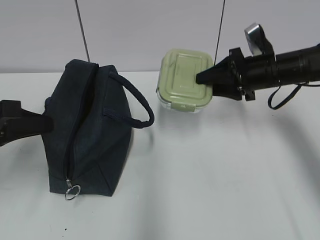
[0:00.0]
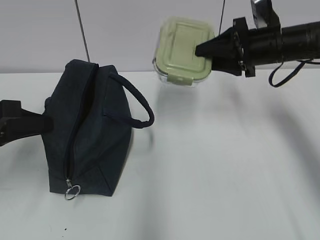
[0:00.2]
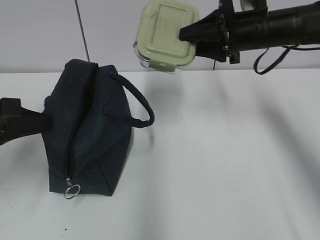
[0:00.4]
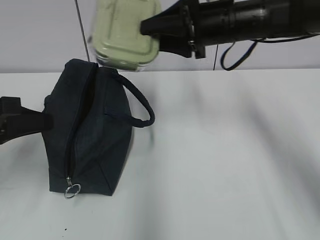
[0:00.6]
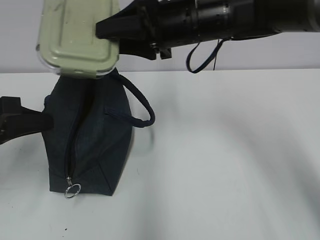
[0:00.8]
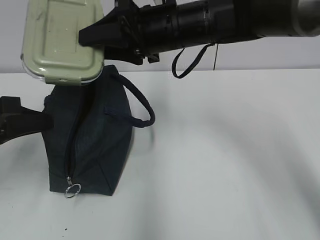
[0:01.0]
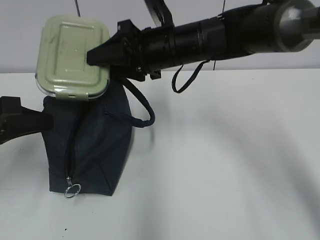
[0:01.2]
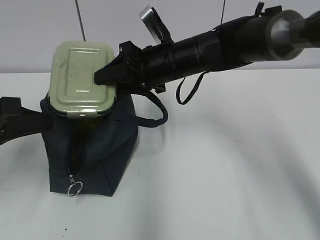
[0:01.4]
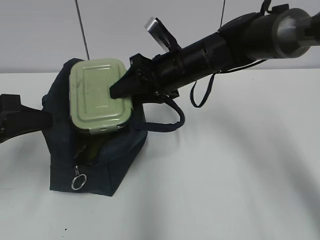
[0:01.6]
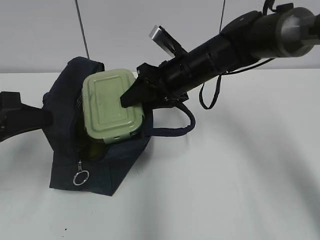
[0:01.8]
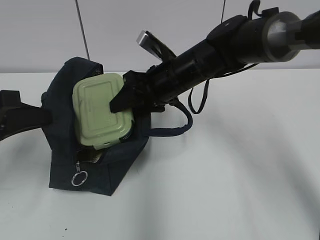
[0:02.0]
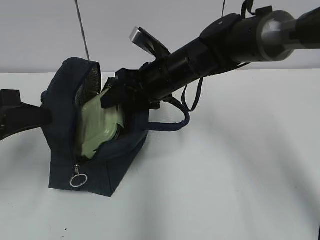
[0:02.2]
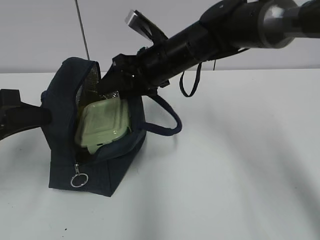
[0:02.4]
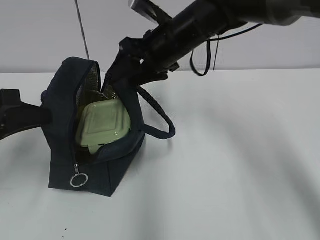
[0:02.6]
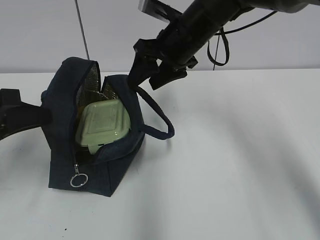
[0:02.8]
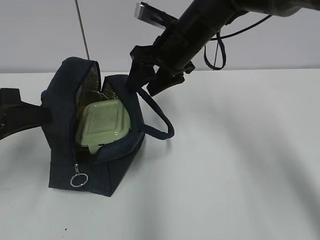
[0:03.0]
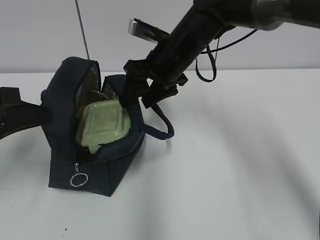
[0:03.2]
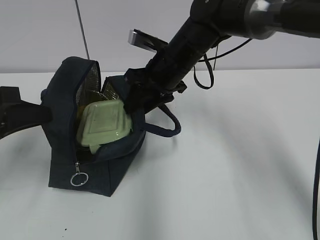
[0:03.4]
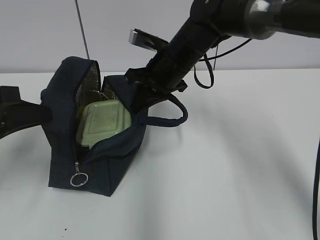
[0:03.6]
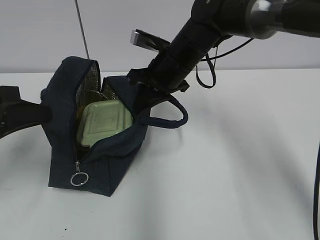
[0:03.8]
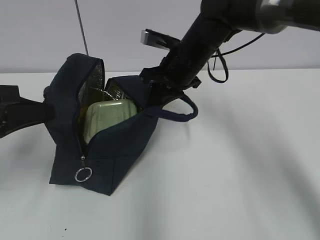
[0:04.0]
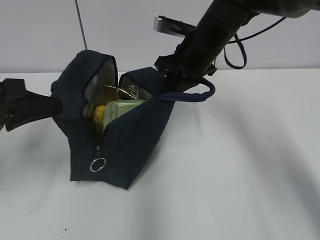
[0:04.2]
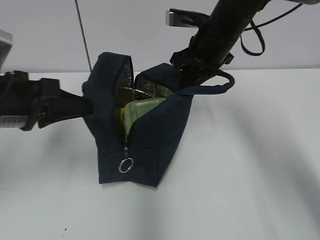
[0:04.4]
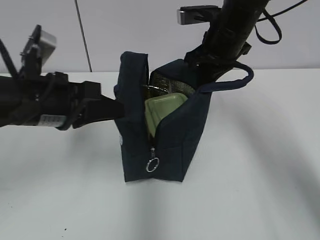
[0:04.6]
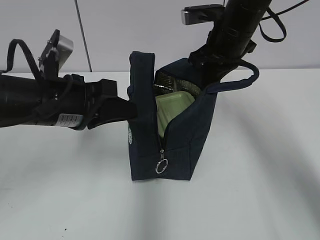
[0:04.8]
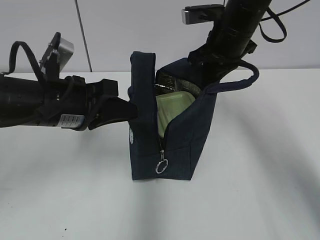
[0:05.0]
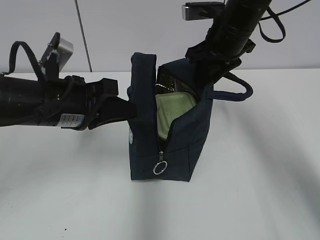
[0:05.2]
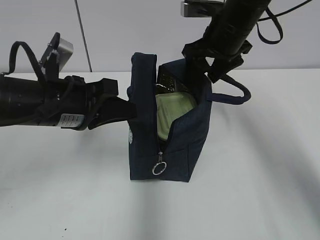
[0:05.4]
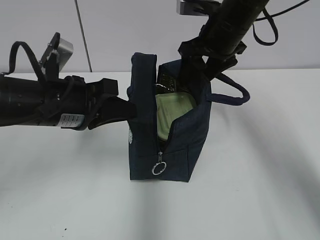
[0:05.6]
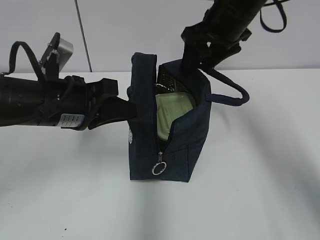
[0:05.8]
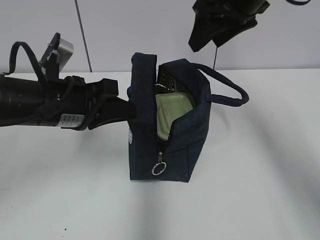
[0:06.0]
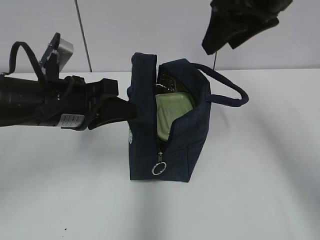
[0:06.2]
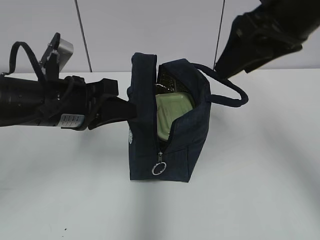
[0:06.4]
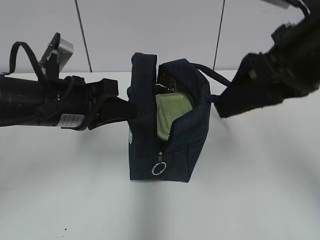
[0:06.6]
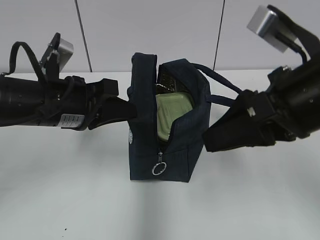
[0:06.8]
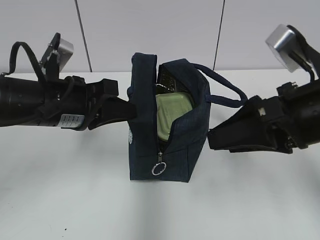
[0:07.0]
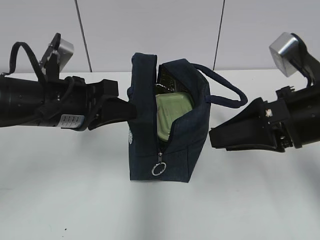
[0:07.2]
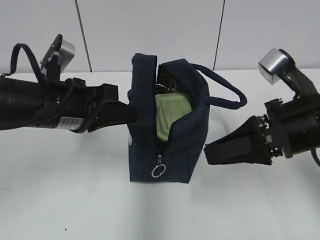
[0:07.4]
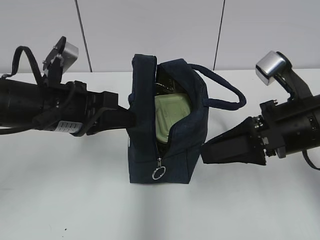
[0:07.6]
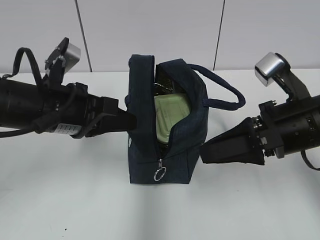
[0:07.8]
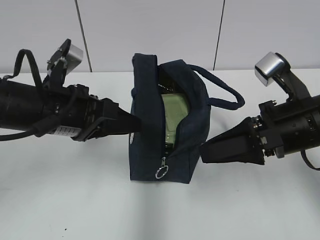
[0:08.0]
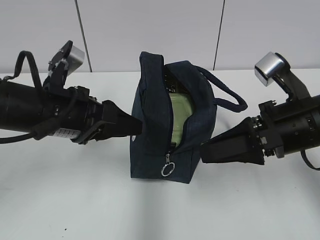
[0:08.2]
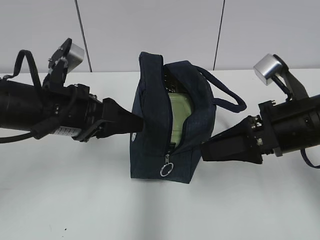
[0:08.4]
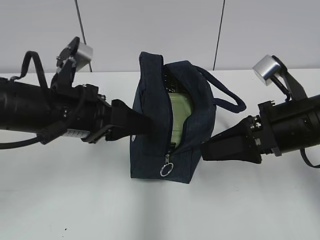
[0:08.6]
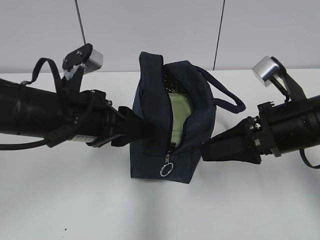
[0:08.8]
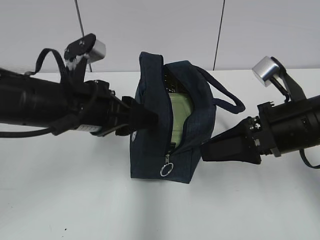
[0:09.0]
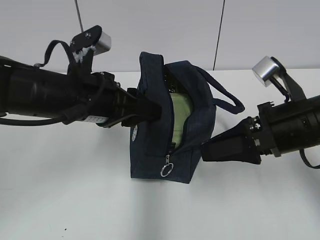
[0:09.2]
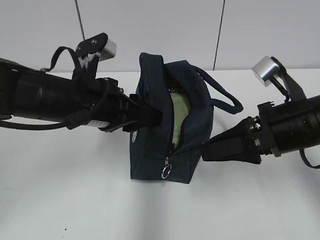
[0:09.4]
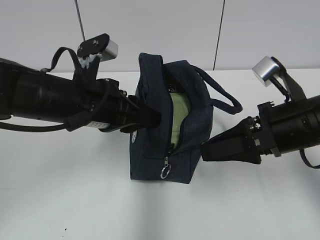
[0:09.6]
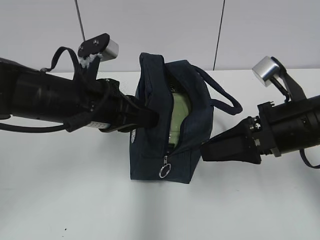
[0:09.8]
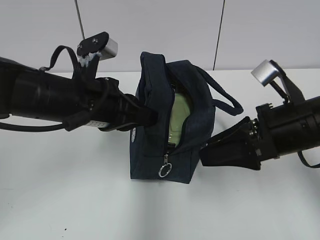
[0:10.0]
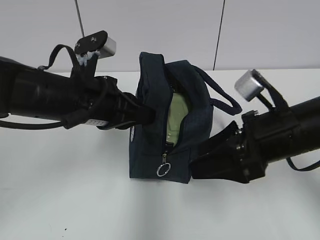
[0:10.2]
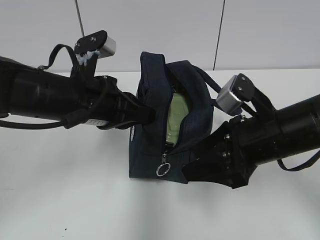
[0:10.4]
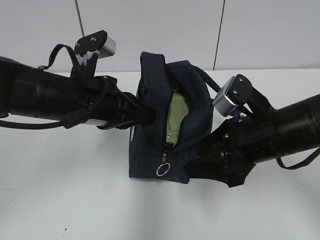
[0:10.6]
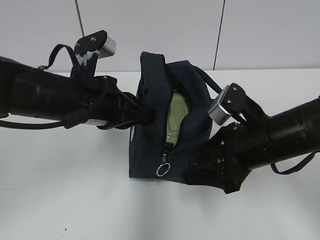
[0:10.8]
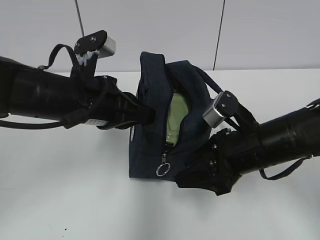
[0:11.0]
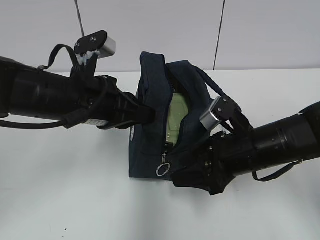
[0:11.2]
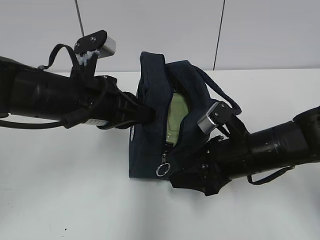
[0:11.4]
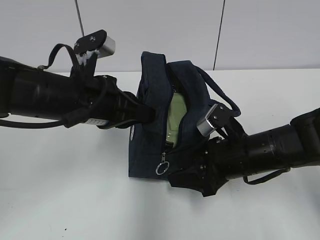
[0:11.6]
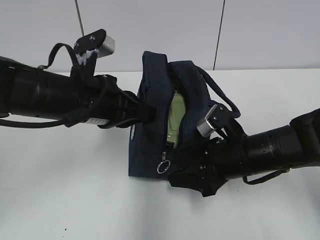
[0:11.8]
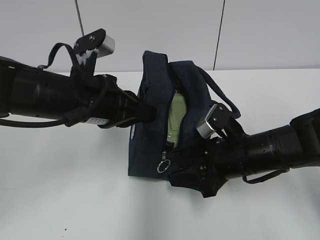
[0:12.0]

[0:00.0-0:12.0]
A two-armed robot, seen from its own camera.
Step, 0:02.6 to 0:03.4: Grab the lunch bag with your right hand.
Step, 0:03.6 to 0:05.2: Move the lunch bag to the right.
Step, 0:05.4 to 0:09.6: Grab the lunch bag with your left hand.
0:00.0 to 0:01.6: The right gripper moves to the left, roughly 15 cm.
0:03.0 to 0:04.4: Both grippers travel together to the right, roughly 5 cm. The right gripper closes.
0:04.4 to 0:06.0: The left gripper heads to the right, covering some 5 cm, while the right gripper shifts roughly 10 cm upward, and opens up.
0:06.0 to 0:07.6: The right gripper shifts approximately 20 cm downward and backward.
0:07.6 to 0:09.0: The left gripper opens up.
0:09.0 to 0:10.4: The left gripper closes.
0:10.4 to 0:12.0: The right gripper heads downward, covering some 10 cm.

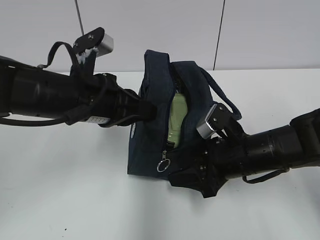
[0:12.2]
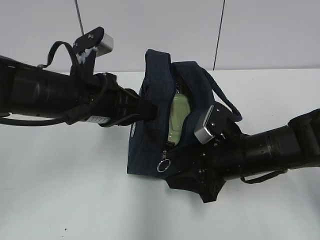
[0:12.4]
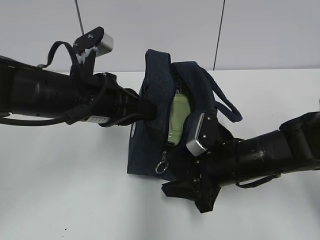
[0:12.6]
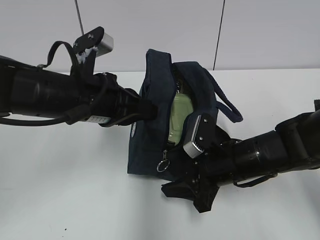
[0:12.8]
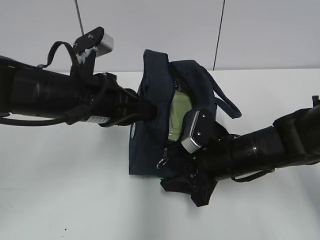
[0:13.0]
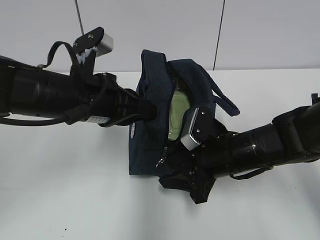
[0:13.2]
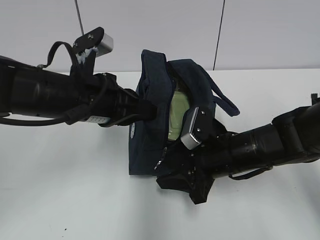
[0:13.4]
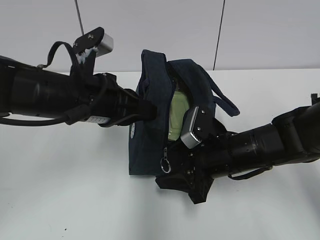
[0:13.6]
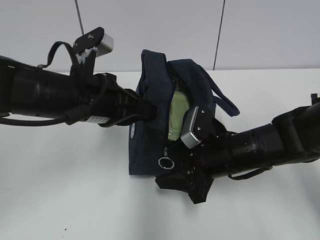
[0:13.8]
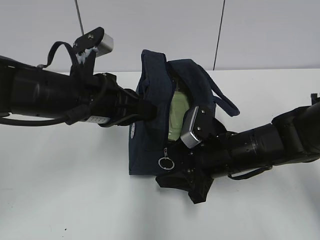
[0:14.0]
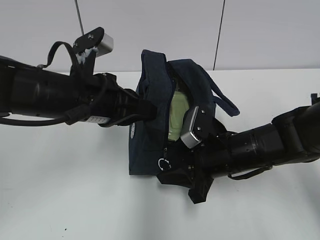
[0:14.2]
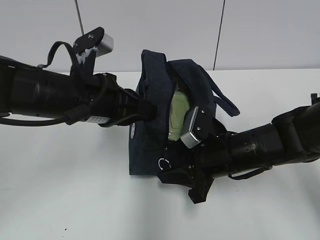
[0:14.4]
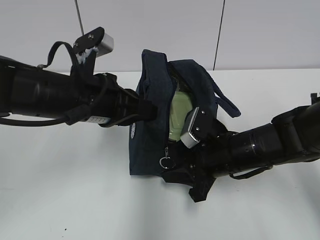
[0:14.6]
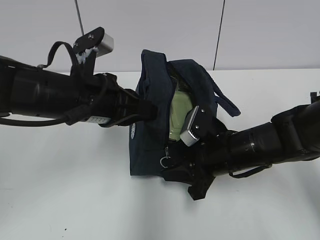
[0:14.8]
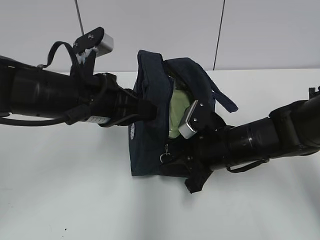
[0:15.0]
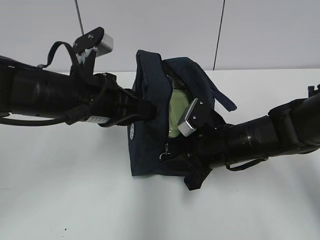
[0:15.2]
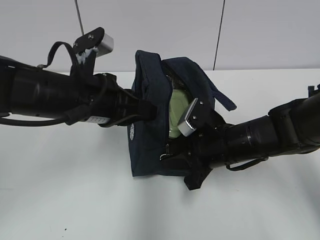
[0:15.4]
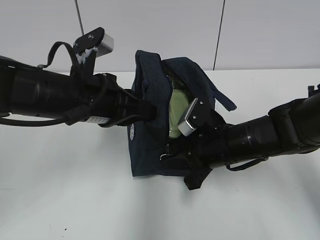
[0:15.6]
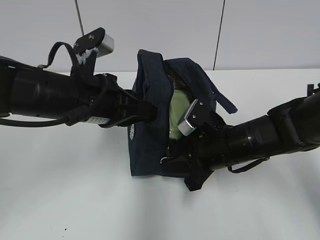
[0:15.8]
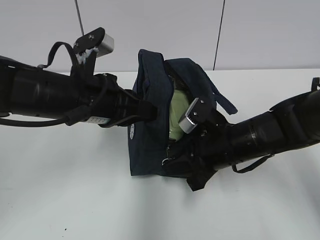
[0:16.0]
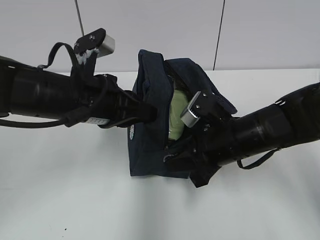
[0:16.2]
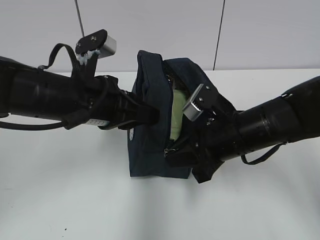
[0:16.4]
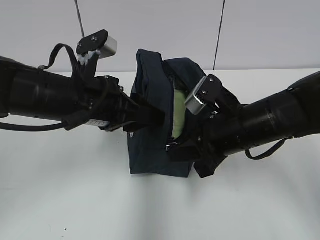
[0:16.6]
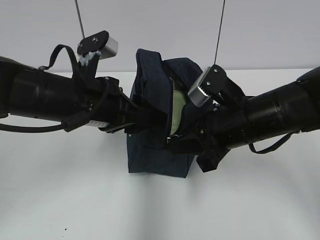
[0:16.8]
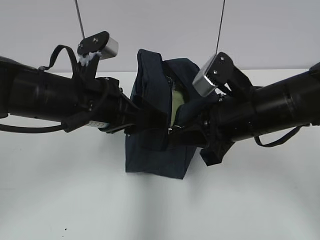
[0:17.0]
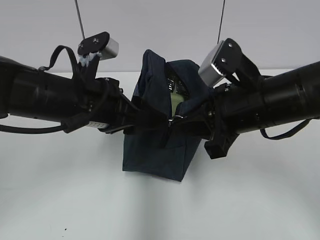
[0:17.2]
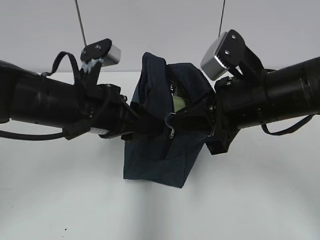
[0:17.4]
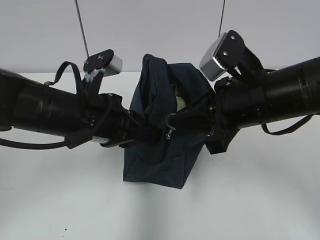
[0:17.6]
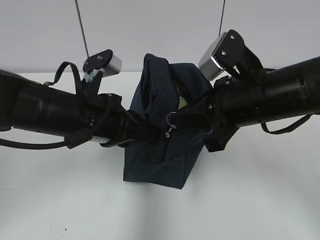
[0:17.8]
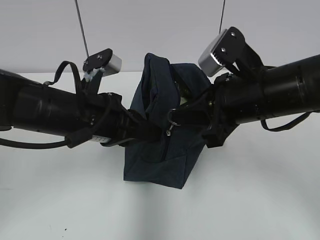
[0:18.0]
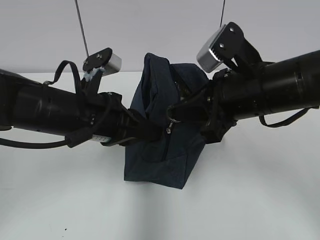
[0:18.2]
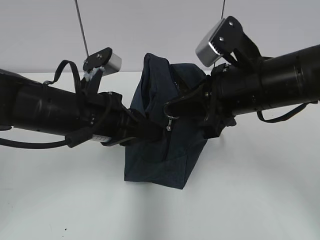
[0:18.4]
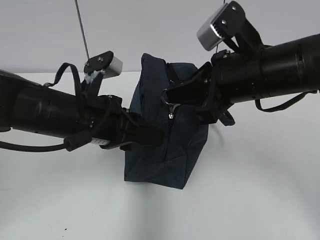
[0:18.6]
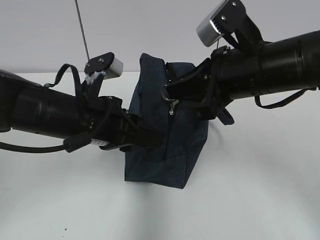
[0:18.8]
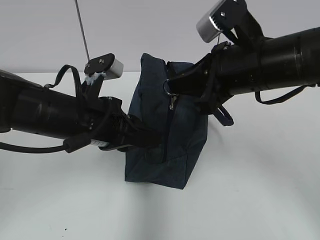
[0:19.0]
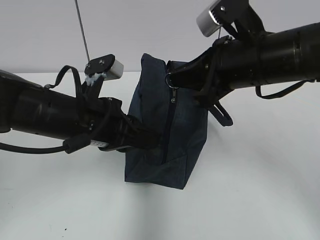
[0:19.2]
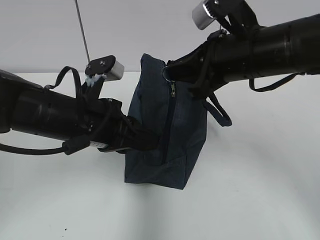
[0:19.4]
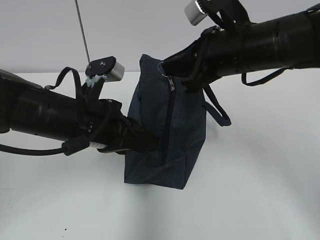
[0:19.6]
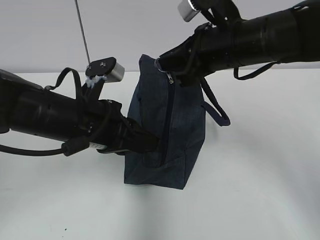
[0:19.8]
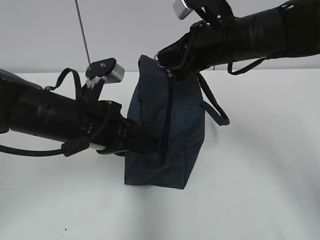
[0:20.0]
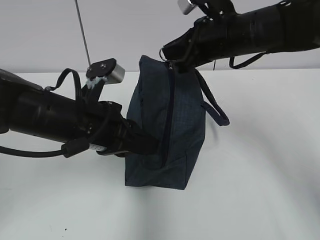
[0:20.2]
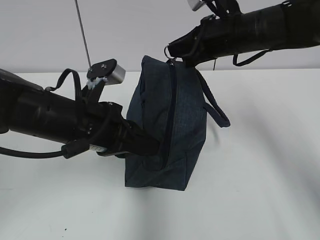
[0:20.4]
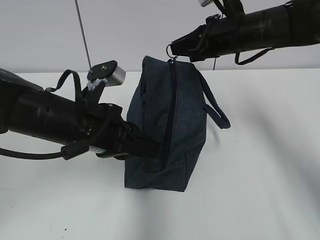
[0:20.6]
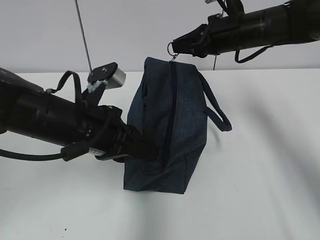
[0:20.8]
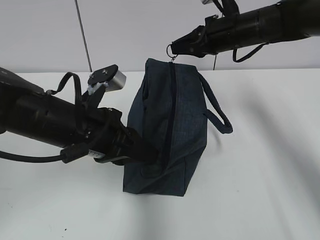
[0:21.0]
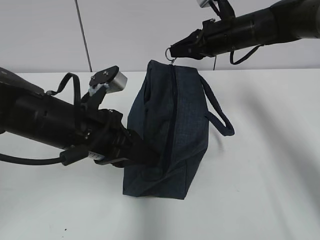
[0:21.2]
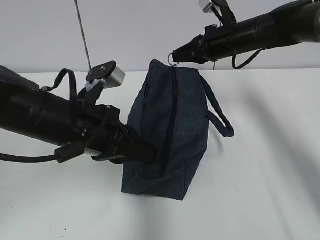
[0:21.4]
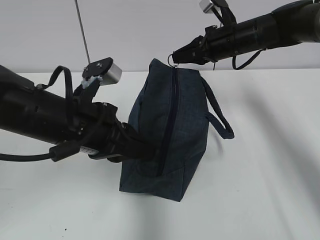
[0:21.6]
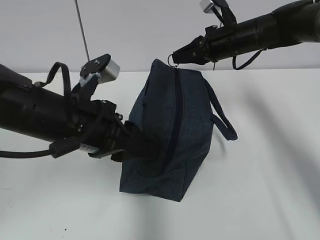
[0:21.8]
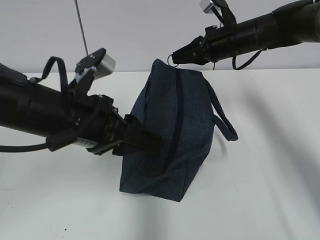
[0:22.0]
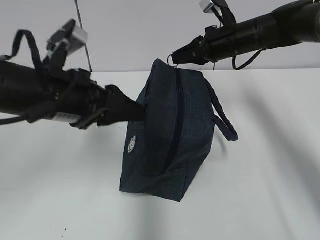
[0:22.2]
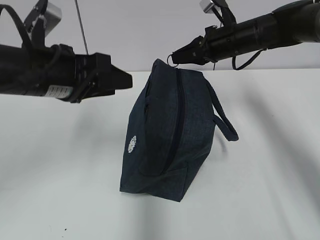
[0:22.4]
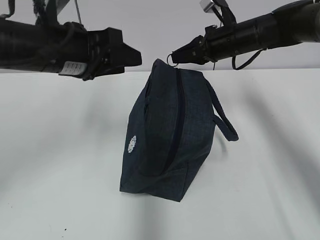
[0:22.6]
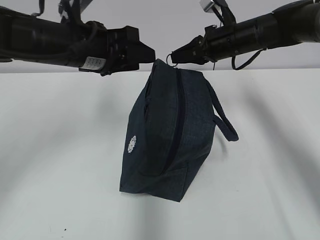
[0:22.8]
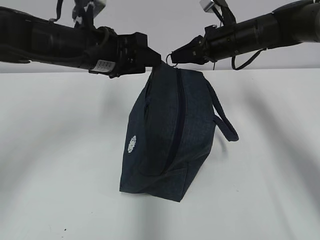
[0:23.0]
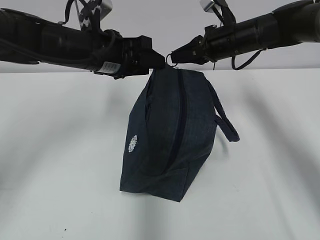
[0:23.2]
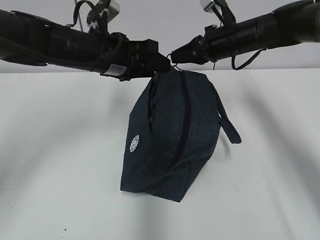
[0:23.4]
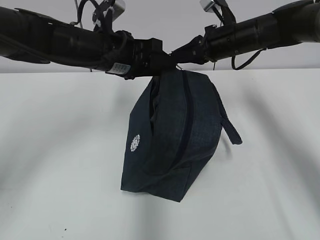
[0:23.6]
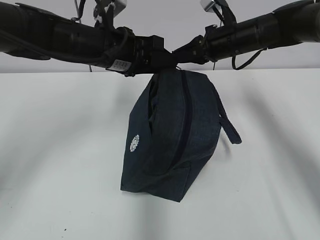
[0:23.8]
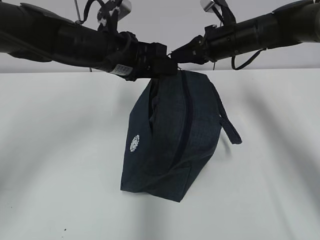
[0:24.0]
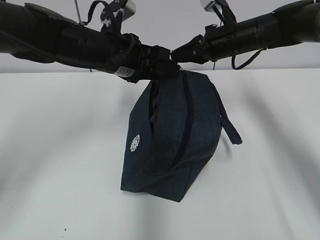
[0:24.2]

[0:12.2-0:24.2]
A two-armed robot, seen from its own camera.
0:12.2 to 0:13.8: The grippers stay close to where they were, moving slightly.
0:13.8 to 0:15.2: The right gripper closes its fingers.
0:15.2 to 0:16.6: The right gripper goes approximately 5 cm upward. The left gripper opens.
0:16.6 to 0:18.2: The right gripper is displaced upward by roughly 5 cm. The left gripper closes its fingers.
0:18.2 to 0:19.8: The right gripper travels forward by about 5 cm, while the left gripper opens, then closes again.
0:19.8 to 0:21.2: The right gripper travels forward by about 15 cm.
0:21.2 to 0:22.6: The left gripper is displaced upward and forward by some 10 cm, and opens up.
0:22.6 to 0:24.2: The left gripper shifts about 10 cm forward and to the right.
